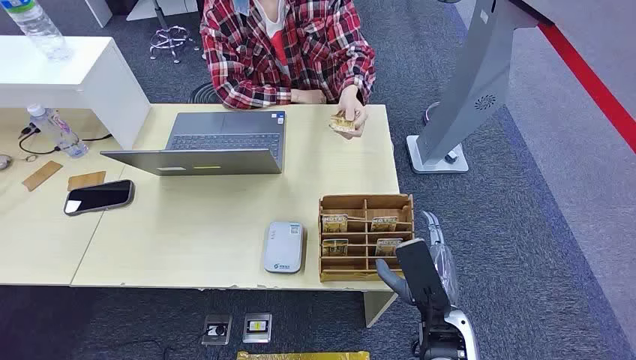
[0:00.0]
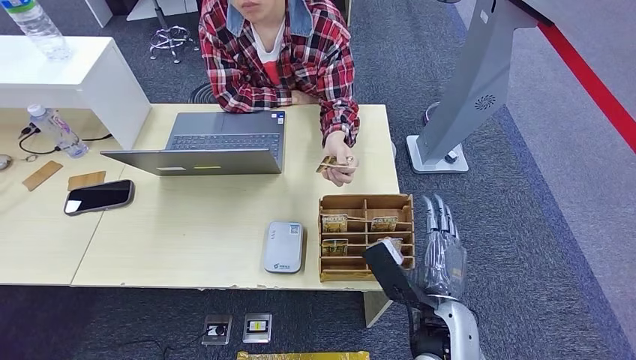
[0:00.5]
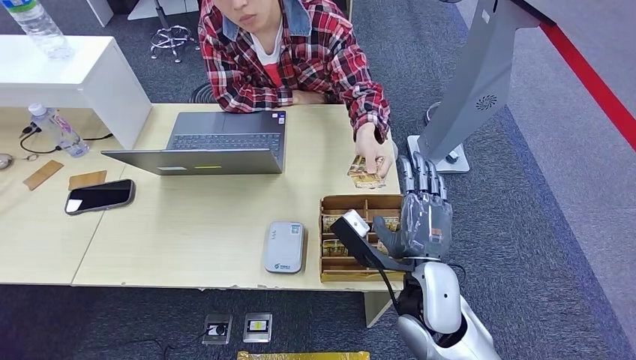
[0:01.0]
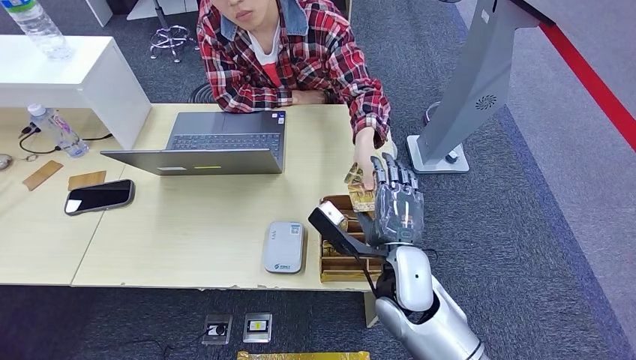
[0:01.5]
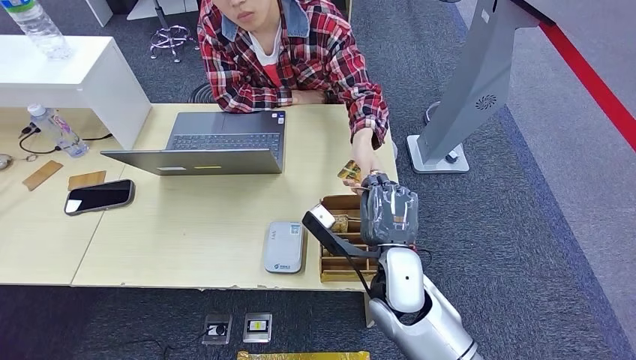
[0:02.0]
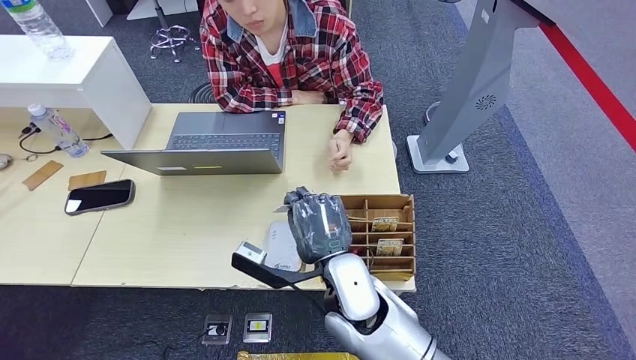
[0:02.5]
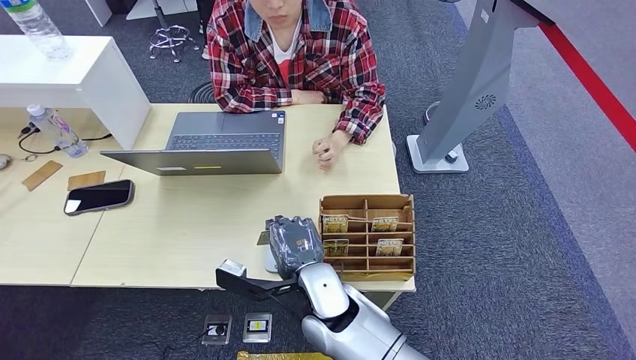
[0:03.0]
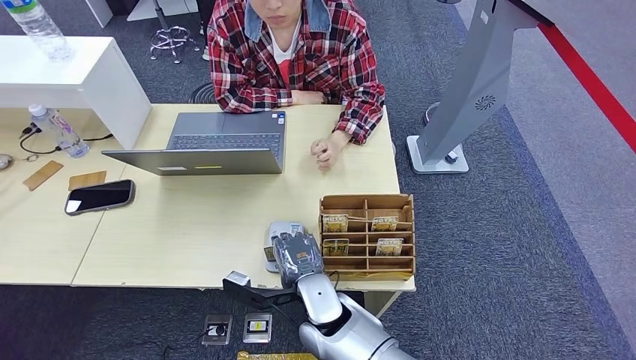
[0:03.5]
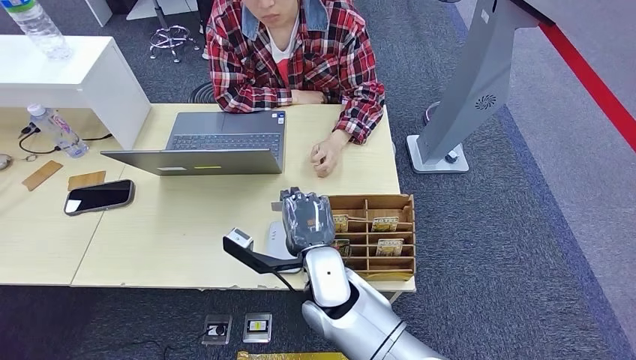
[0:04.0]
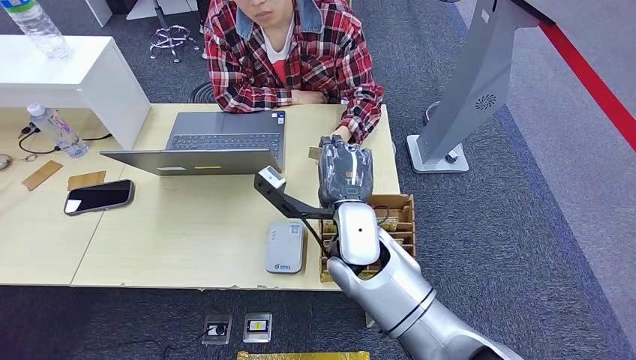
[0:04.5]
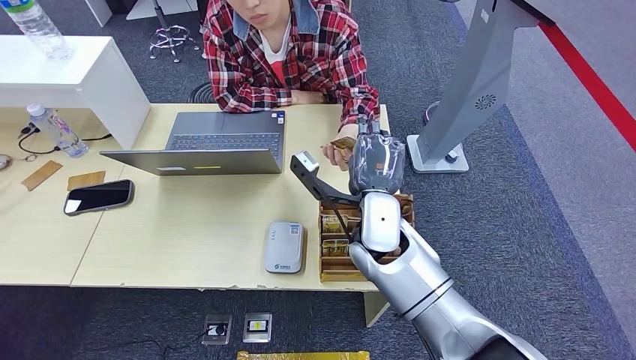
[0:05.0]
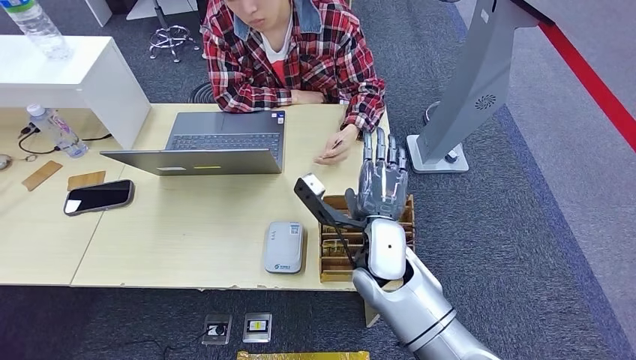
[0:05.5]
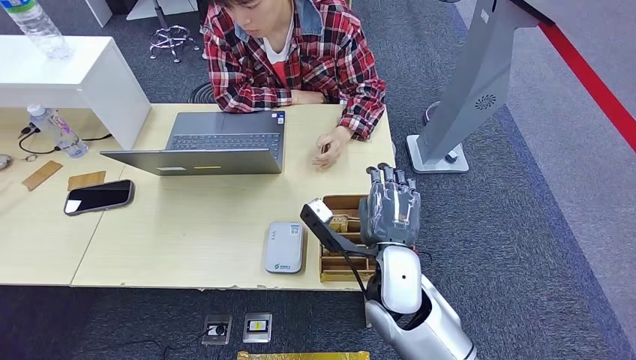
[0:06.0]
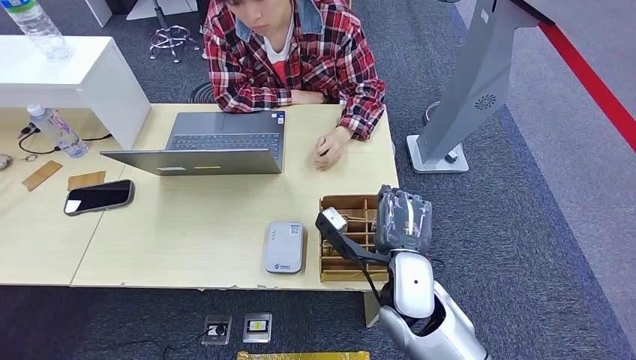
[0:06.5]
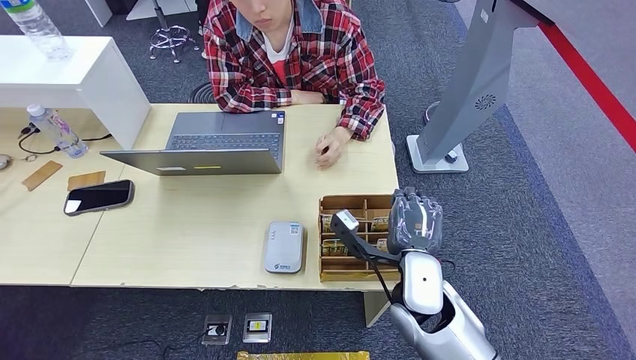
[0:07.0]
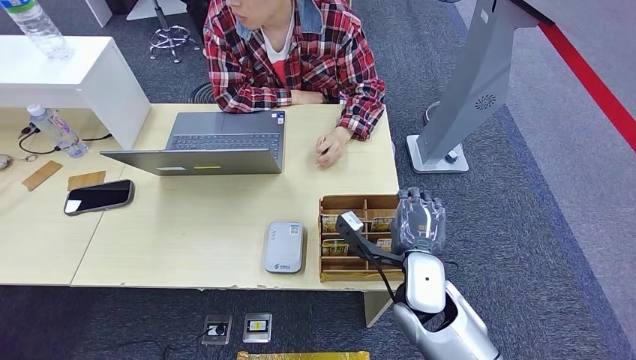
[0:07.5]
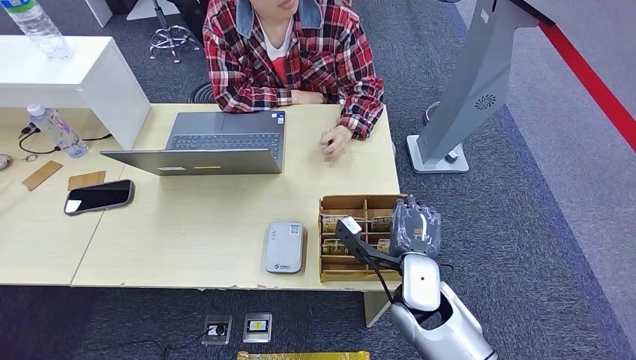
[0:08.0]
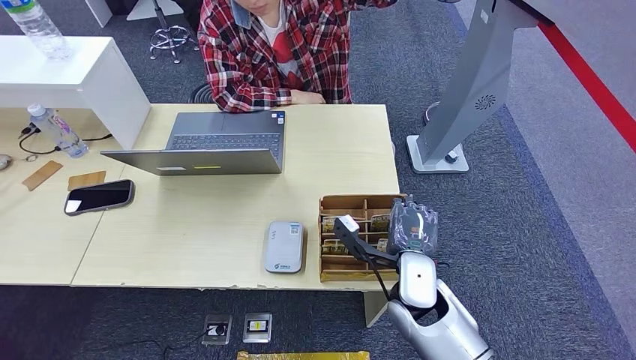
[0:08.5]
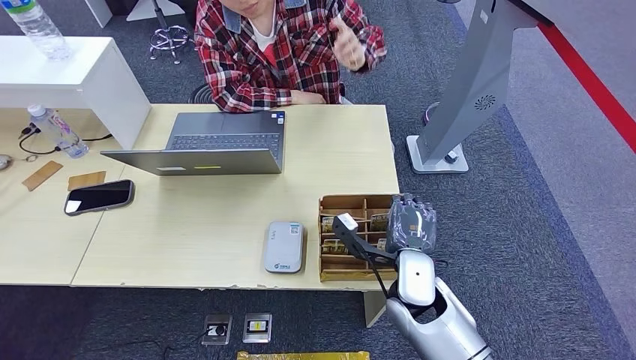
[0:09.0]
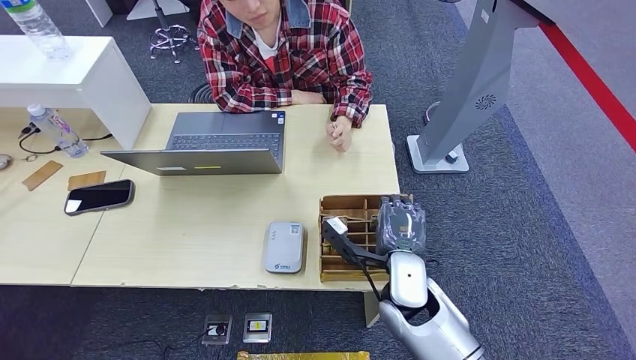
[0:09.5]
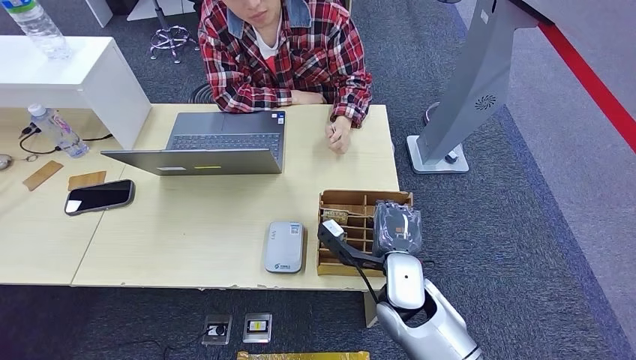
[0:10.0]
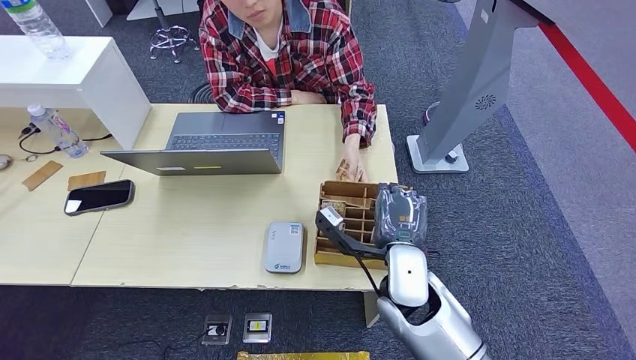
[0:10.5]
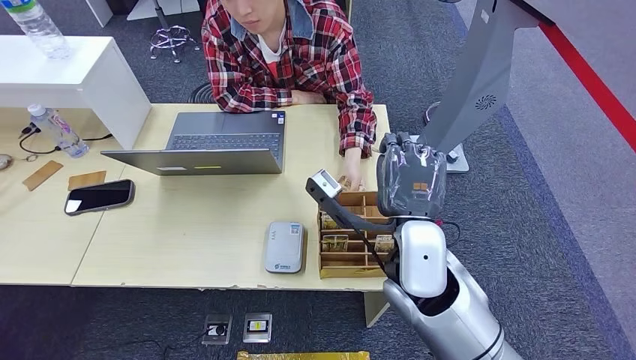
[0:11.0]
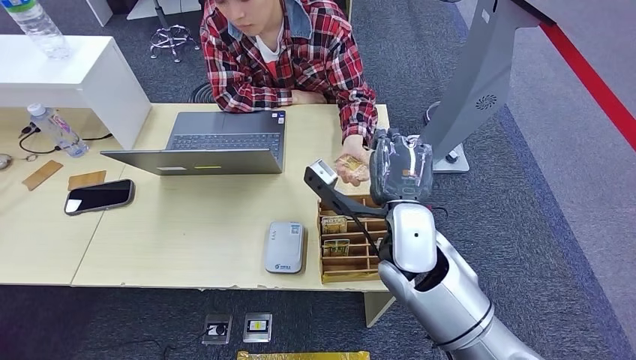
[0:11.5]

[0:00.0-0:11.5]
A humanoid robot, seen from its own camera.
Step, 0:00.0 to 0:02.0: Take the ID card from the person's hand.
Step, 0:02.5 to 0:04.0: Place the ID card on the card reader.
Step, 0:04.5 to 0:05.0: Hand the ID card to the person.
Step, 0:06.0 to 0:10.0: Pick up the room key from the key card box.
Step, 0:10.5 to 0:11.0: Hand the room key to the person.
0:02.0 to 0:04.0: The right hand is displaced to the left by some 10 cm.
0:04.0 to 0:06.0: The right hand heads to the right, covering roughly 10 cm.
0:06.0 to 0:07.5: The right hand ends up roughly 5 cm from where it was.
0:07.5 to 0:09.5: There are only small adjustments of the hands.
0:09.5 to 0:11.5: The right hand moves upward, about 10 cm.
